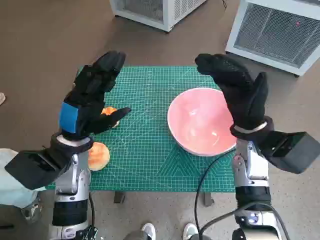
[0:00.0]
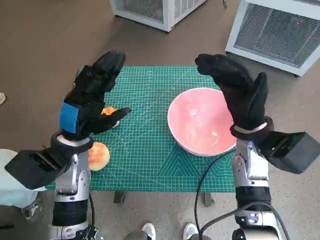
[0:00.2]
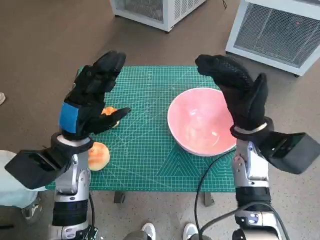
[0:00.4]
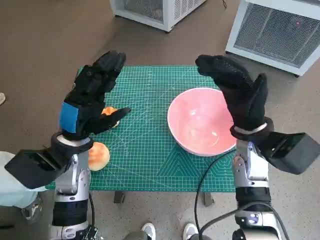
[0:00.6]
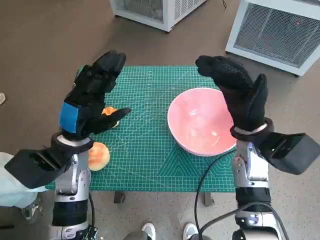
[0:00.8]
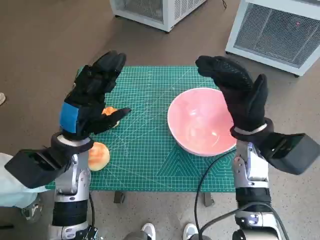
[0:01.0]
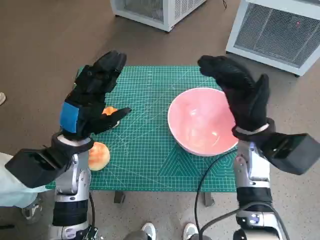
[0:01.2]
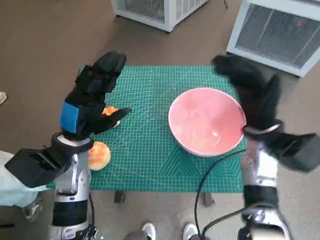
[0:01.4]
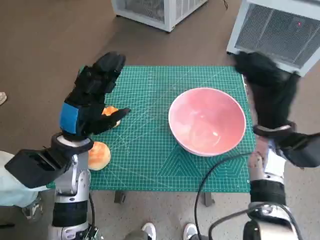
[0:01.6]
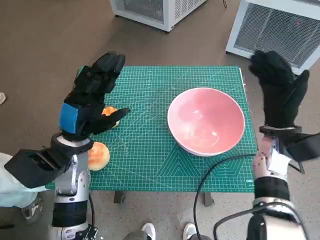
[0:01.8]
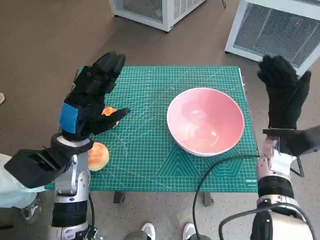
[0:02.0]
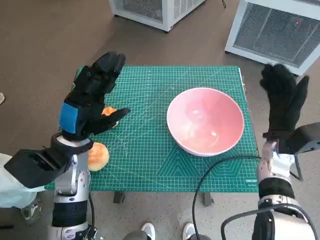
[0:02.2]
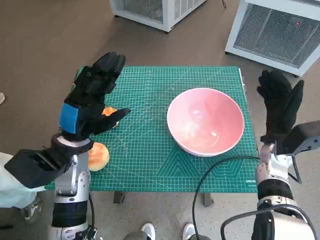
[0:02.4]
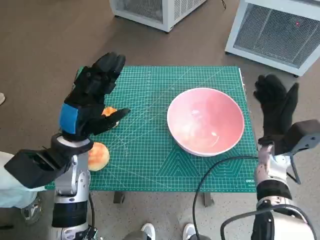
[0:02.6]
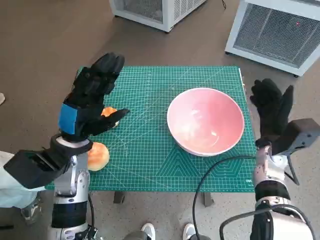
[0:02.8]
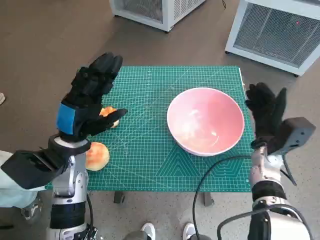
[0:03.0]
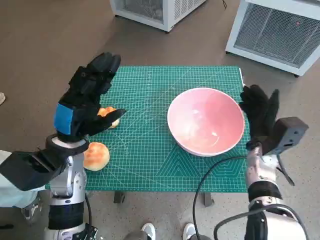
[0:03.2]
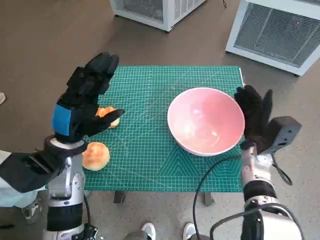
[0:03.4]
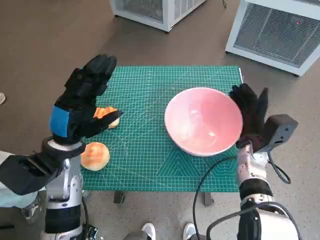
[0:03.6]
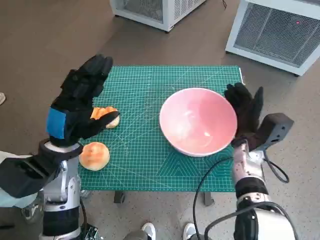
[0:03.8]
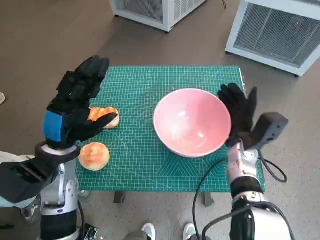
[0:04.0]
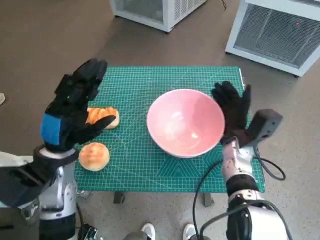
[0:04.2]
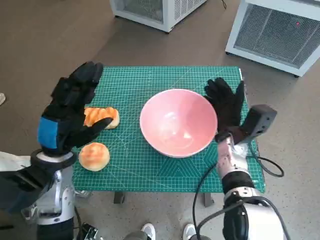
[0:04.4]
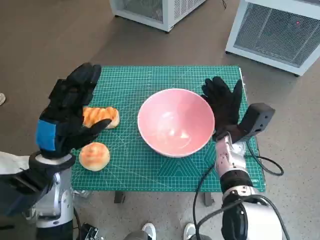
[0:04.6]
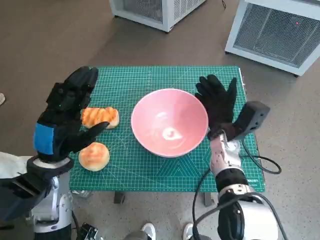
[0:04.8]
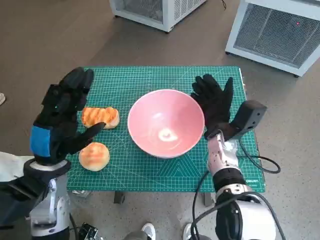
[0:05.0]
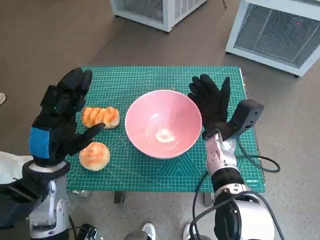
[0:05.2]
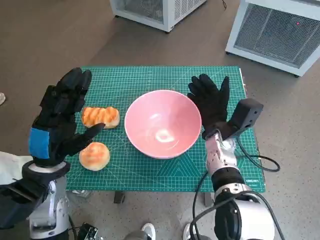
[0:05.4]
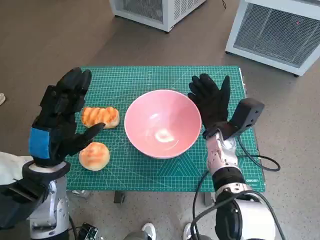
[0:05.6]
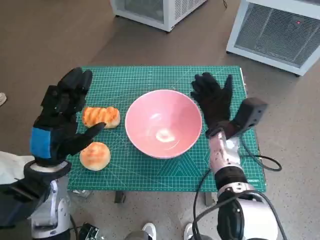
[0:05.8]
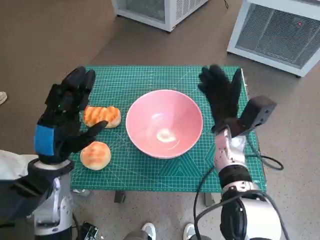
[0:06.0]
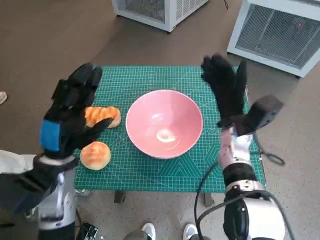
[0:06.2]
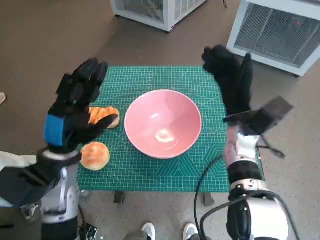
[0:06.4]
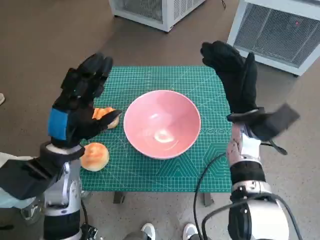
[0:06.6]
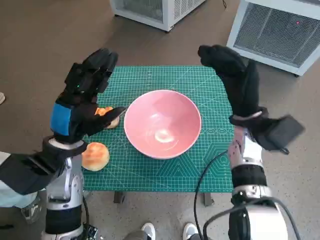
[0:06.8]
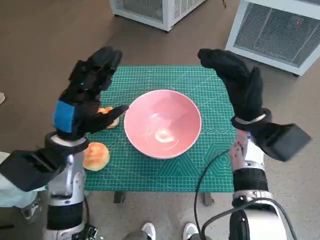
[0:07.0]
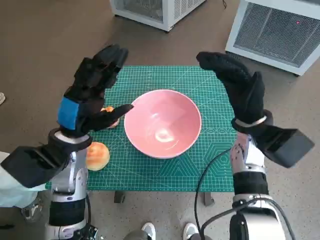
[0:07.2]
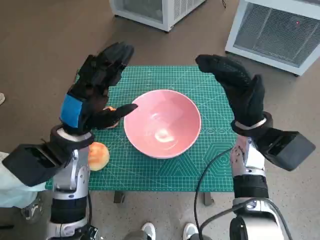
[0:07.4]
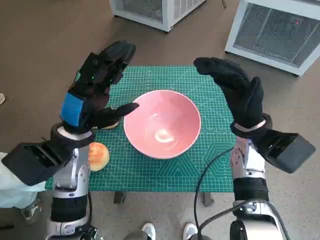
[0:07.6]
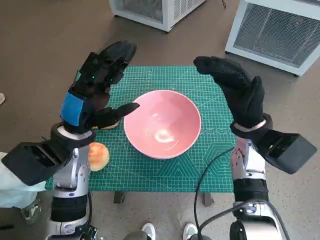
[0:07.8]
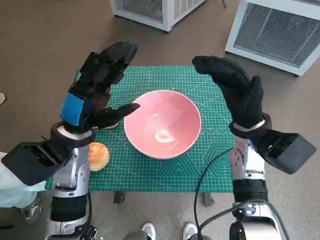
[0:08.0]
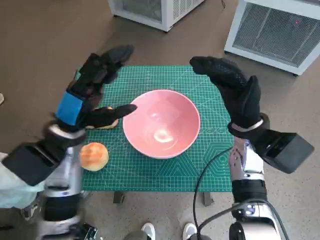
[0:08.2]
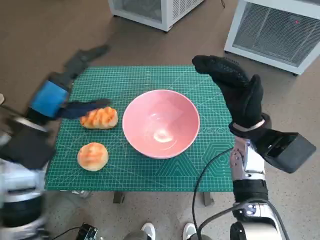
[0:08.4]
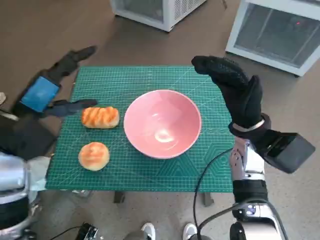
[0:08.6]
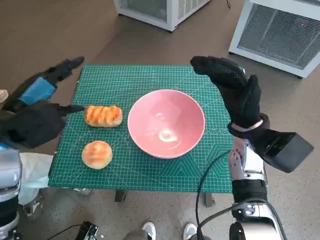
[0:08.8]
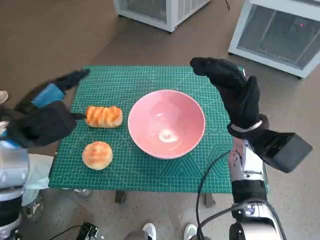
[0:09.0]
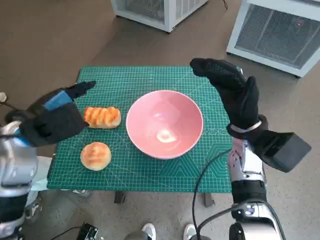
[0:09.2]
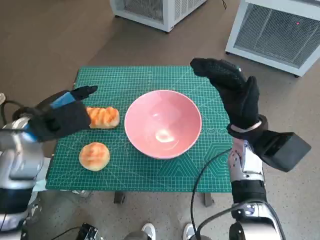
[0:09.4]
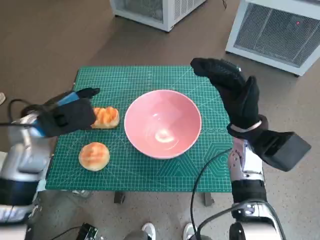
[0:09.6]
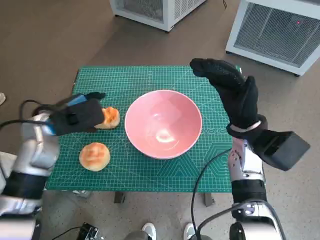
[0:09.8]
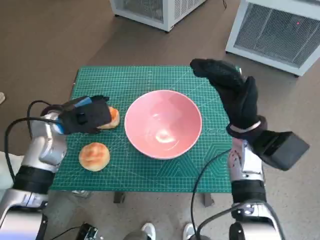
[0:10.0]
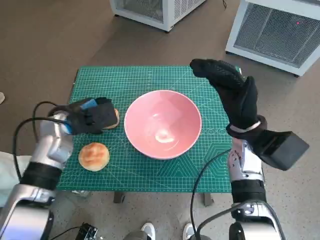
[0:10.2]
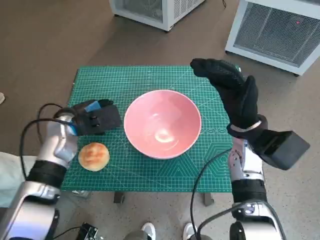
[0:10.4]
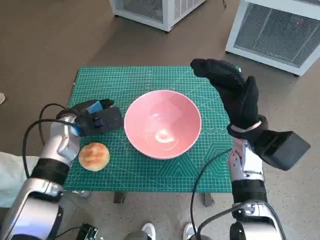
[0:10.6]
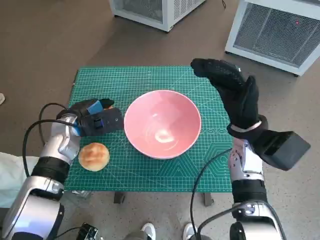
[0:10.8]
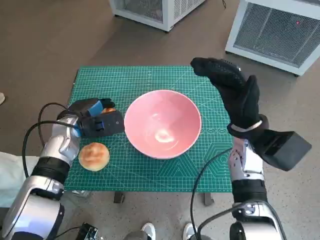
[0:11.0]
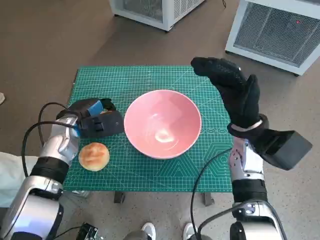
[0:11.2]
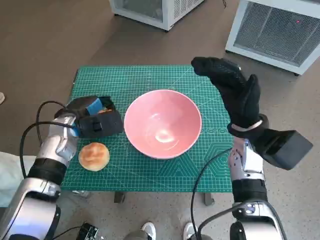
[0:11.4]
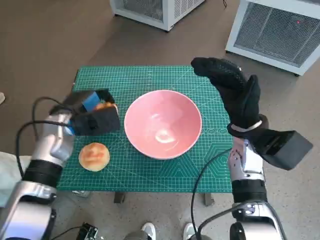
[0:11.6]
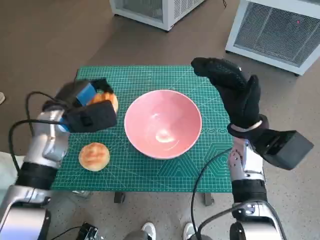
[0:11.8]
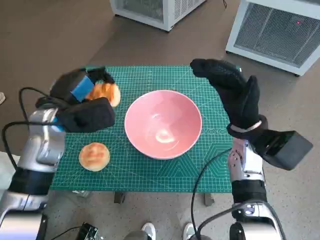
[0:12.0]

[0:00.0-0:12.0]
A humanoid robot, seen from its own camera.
Task of the whole recording: Push the bowl into the center of the table and put the bread into the bowl.
Step, 0:00.0 to 0:05.8: Move the pink bowl to the center of table with right hand.
Step, 0:06.2 to 0:10.8: Grasp the long bread with left hand.
0:01.6 to 0:03.0: The right hand heads downward, covering approximately 5 cm.
0:03.0 to 0:04.4: The right hand heads to the left, covering some 5 cm.
0:06.0 to 0:07.6: The left hand heads forward, covering approximately 5 cm. The right hand goes approximately 5 cm upward.
0:07.6 to 0:09.0: The left hand shifts about 5 cm to the left.
0:09.0 to 0:10.4: The left hand moves downward and forward, approximately 10 cm.
0:10.4 to 0:12.0: The left hand travels upward by about 5 cm.

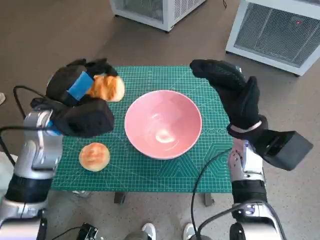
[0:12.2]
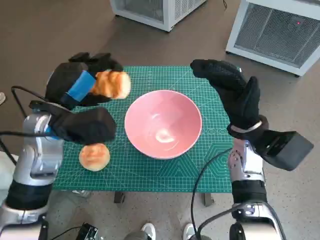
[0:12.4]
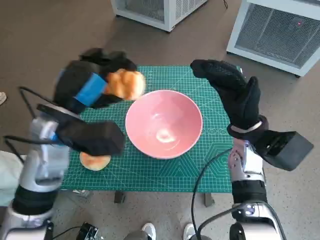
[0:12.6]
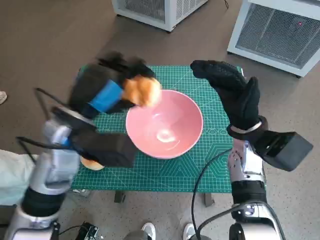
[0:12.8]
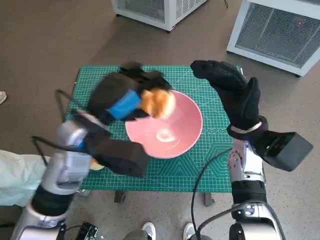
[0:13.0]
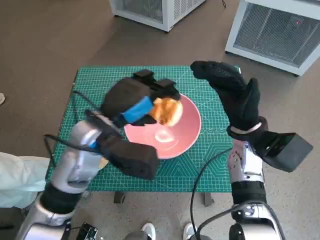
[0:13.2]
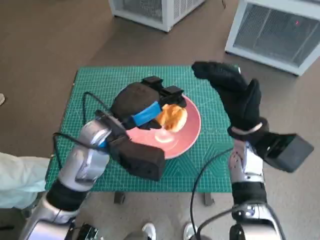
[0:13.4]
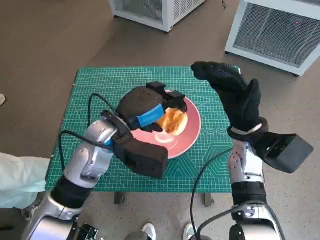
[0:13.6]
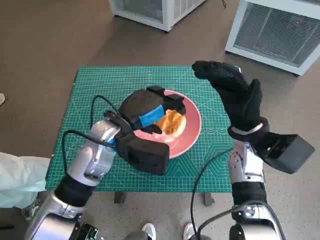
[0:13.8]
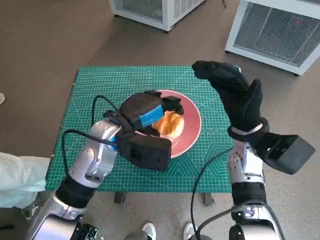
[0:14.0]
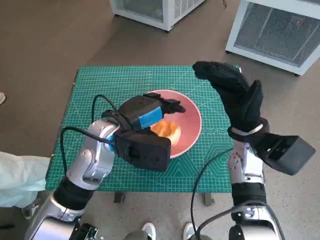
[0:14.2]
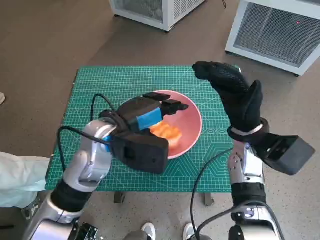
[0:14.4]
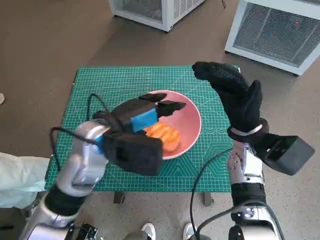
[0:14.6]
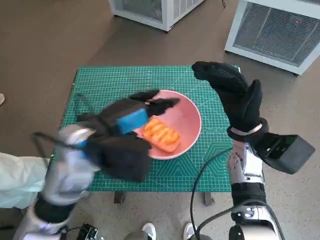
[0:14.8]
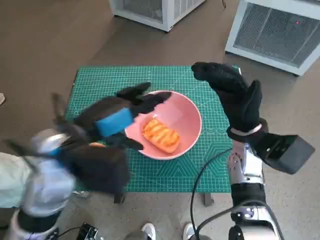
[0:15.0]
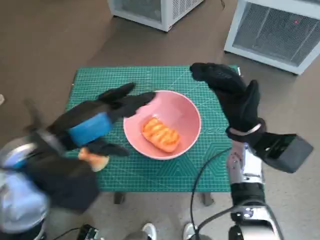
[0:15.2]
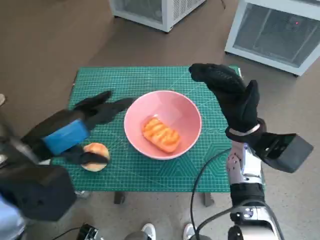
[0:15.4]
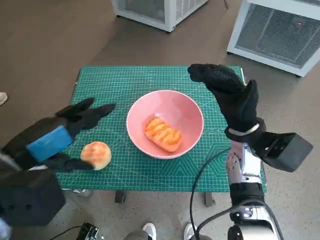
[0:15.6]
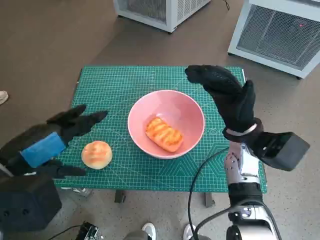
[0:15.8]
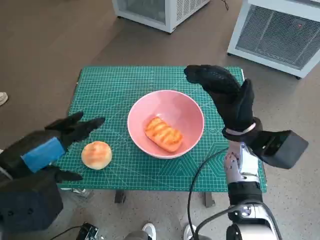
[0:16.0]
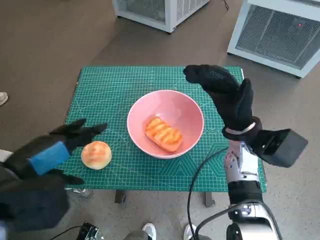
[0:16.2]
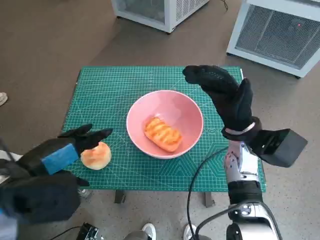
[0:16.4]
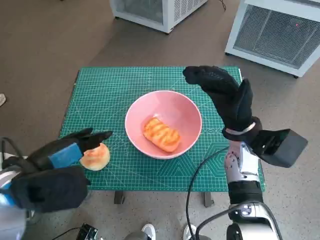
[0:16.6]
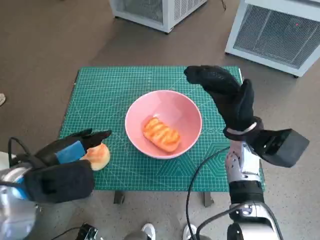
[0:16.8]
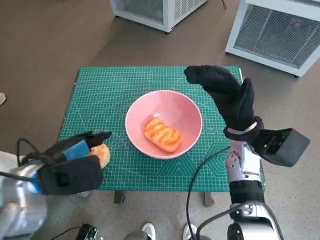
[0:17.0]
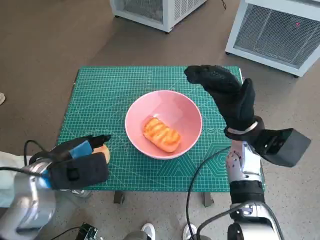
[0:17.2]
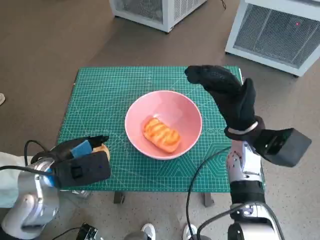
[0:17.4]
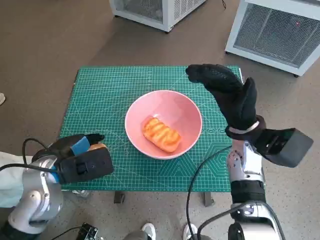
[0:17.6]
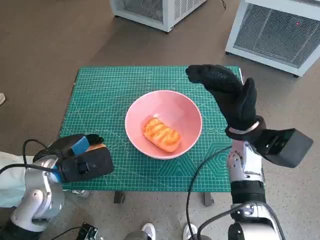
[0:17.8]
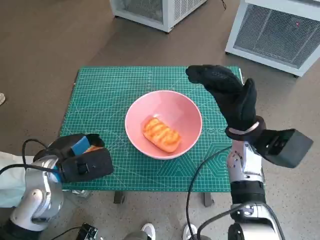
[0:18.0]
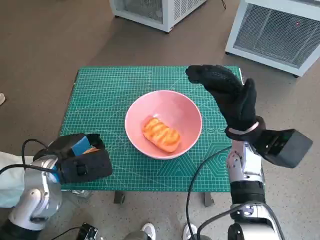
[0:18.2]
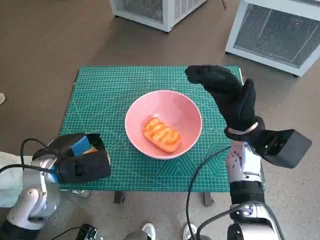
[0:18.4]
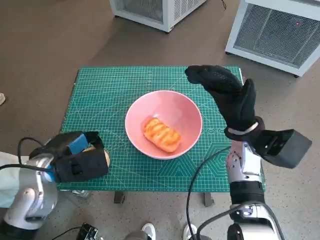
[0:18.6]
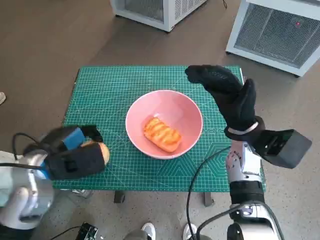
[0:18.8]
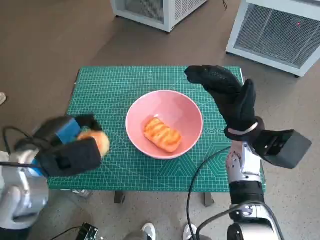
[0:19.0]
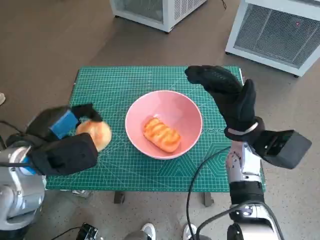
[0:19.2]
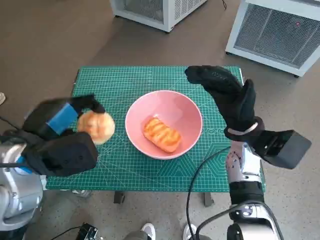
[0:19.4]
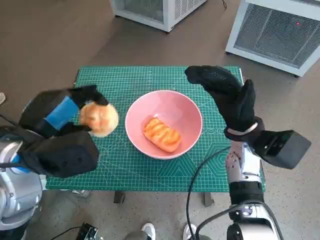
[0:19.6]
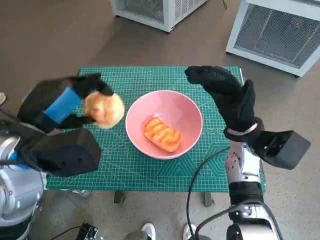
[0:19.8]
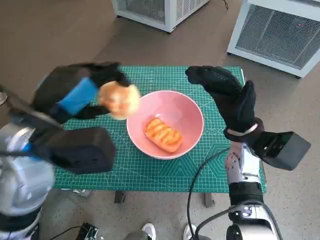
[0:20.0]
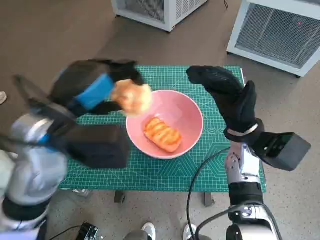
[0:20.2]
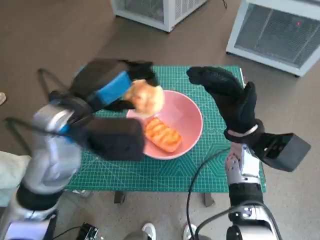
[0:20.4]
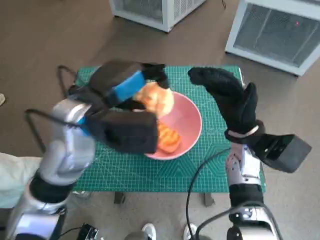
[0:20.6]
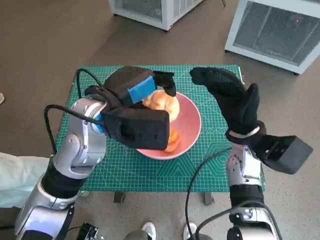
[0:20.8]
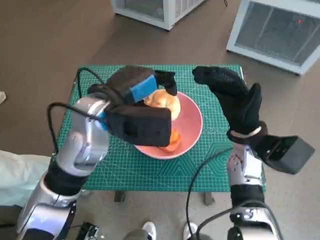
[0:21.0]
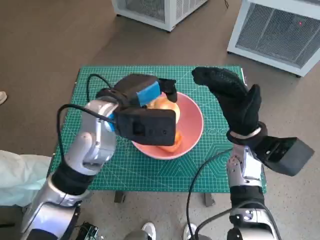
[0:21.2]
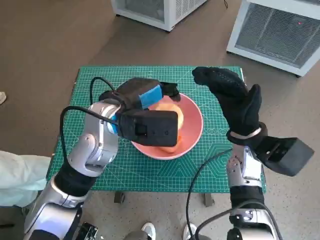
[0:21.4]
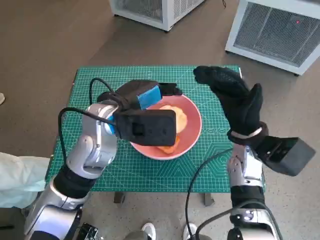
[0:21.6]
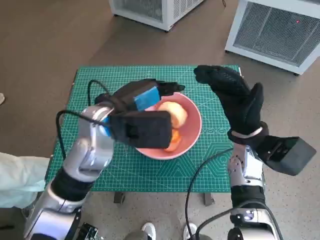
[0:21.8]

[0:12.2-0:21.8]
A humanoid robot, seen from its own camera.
Task of the whole recording: Push the bowl into the center of the table and put the bread into the bowl.
Step, 0:12.2 to 0:14.8: Place the long bread in pink bowl with left hand.
Step, 0:15.2 to 0:17.8: Grasp the round bread with left hand.
0:12.2 to 0:13.8: The left hand travels to the right by roughly 10 cm.
0:13.8 to 0:15.4: The left hand moves backward, to the left and upward, roughly 15 cm.
0:15.4 to 0:17.0: The left hand is displaced downward by some 10 cm.
0:17.0 to 0:18.6: The hands make only small movements.
0:18.6 to 0:20.2: The left hand heads upward and to the right, covering roughly 15 cm.
0:20.2 to 0:21.8: The left hand moves roughly 10 cm.
